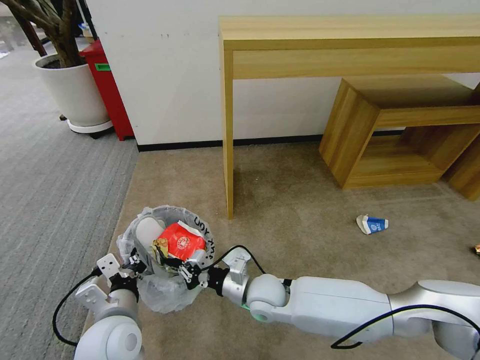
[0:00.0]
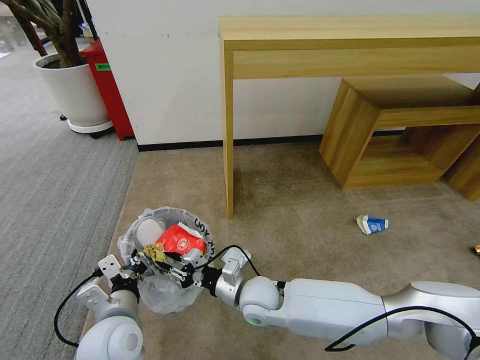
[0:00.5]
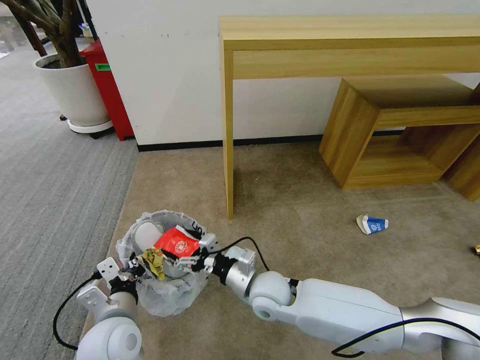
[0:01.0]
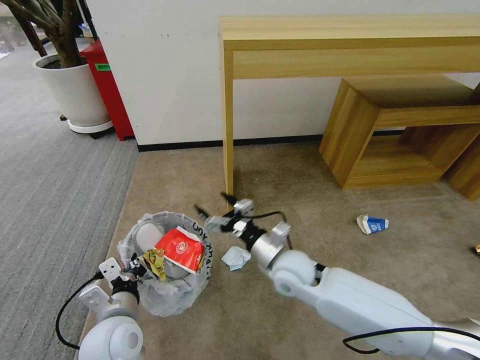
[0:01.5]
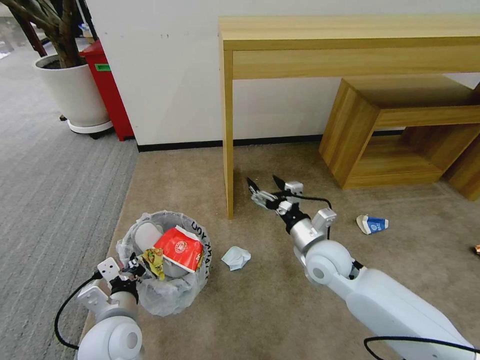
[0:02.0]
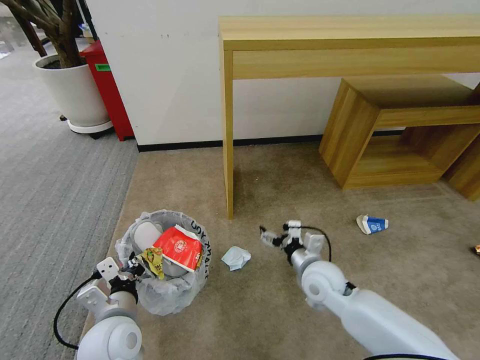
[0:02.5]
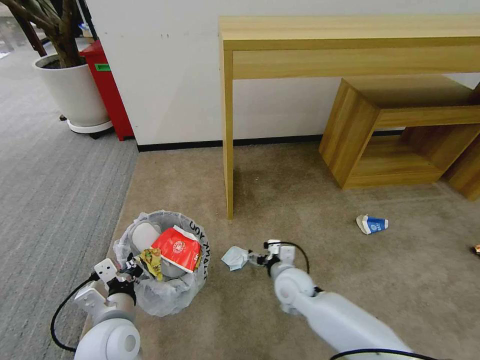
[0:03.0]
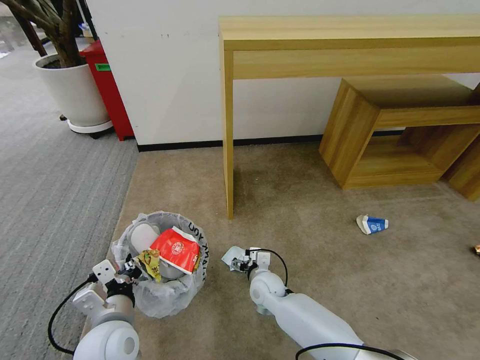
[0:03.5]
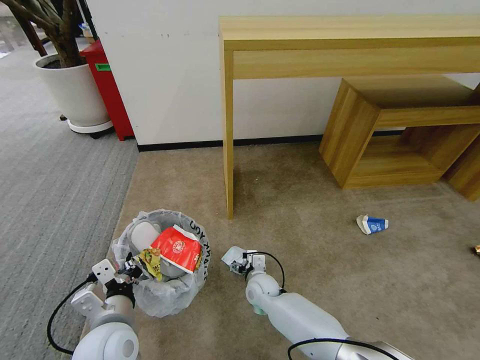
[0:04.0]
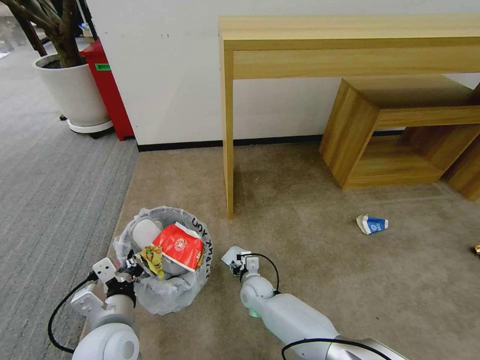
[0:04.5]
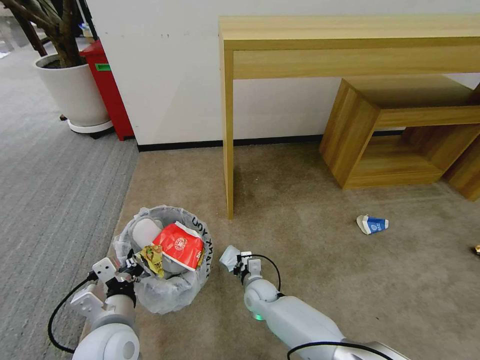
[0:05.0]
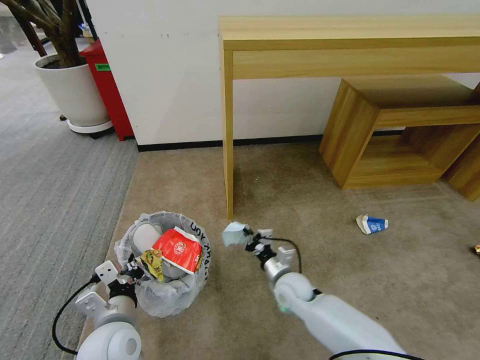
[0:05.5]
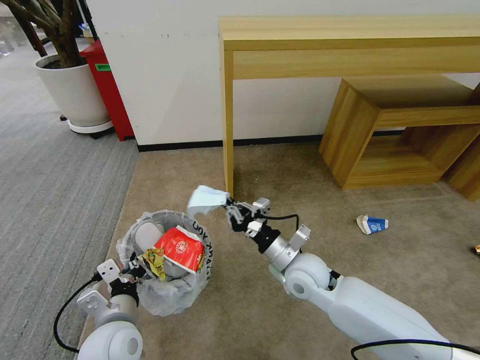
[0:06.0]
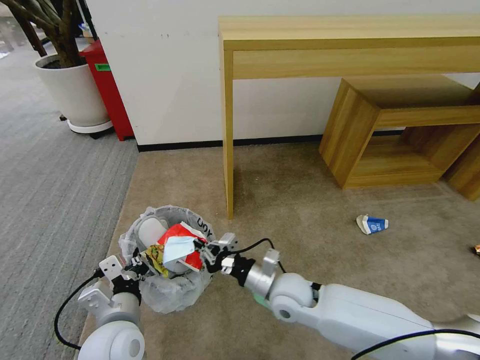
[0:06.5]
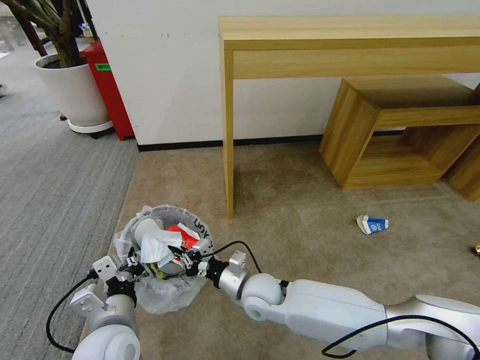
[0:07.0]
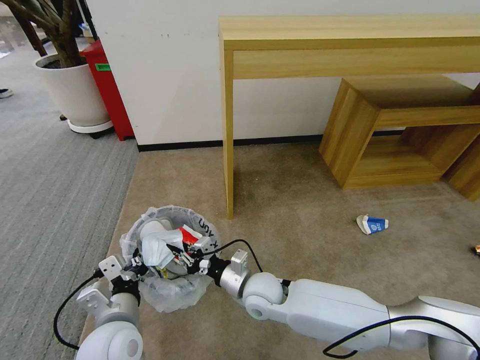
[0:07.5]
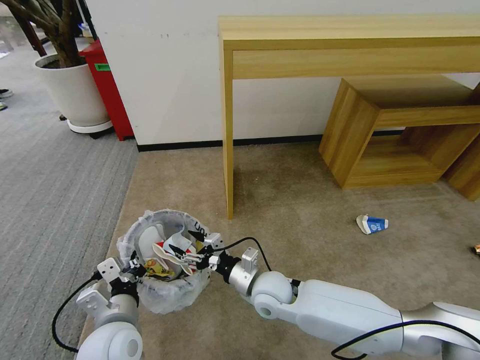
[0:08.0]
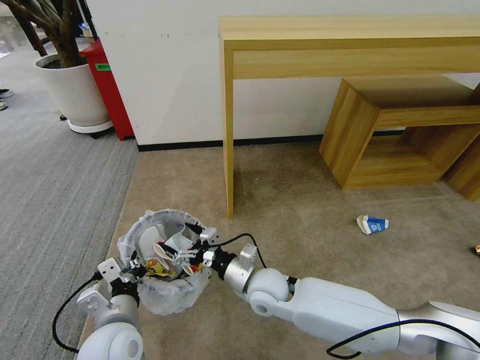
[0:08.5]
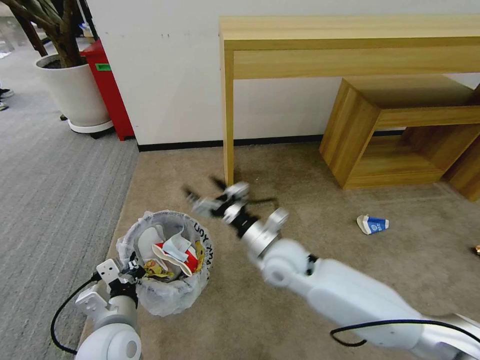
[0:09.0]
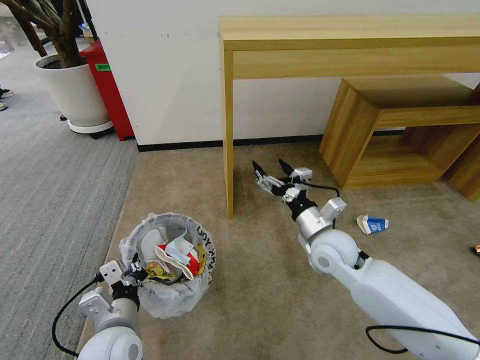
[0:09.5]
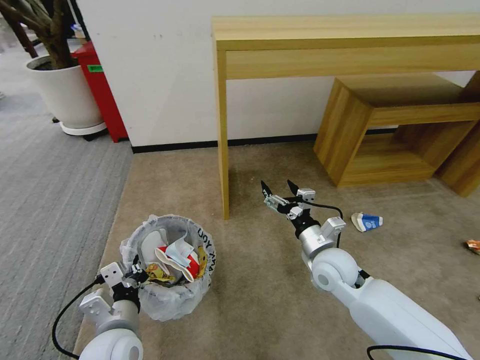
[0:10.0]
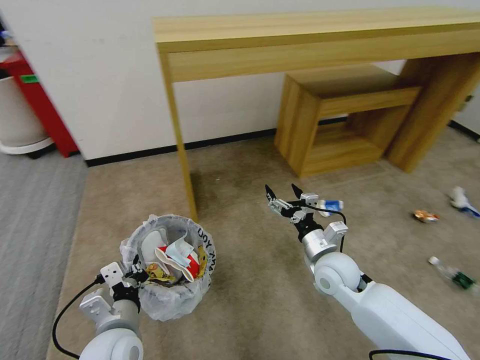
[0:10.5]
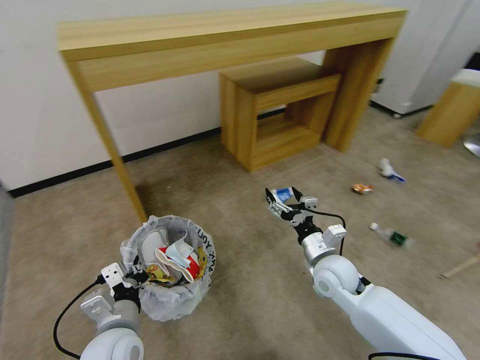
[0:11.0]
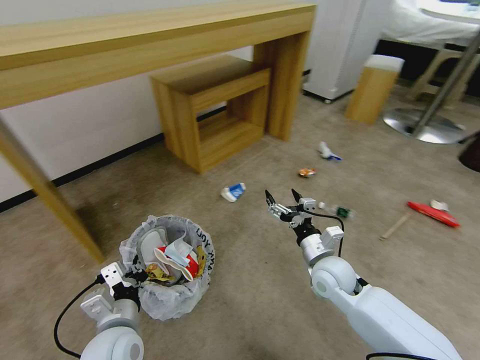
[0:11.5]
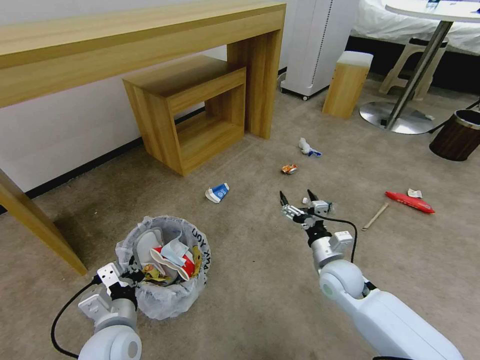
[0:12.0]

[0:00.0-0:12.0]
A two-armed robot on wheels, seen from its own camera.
Task of the whole recording: Pick up the trash bin and place the garbage on the floor into it.
0:00.0 to 0:02.0: The right gripper moves to the right and upward, about 15 cm, and opens its fingers.
0:02.0 to 0:04.0: The right gripper moves downward and to the left, some 25 cm.
0:04.0 to 0:06.0: The right gripper travels upward and to the right by roughly 20 cm, and closes.
0:06.0 to 0:08.0: The right gripper travels to the left by some 10 cm, and opens its fingers.
0:08.0 to 0:10.0: The right gripper heads to the right, covering roughly 15 cm.
0:10.0 to 0:12.0: The right gripper moves about 5 cm.

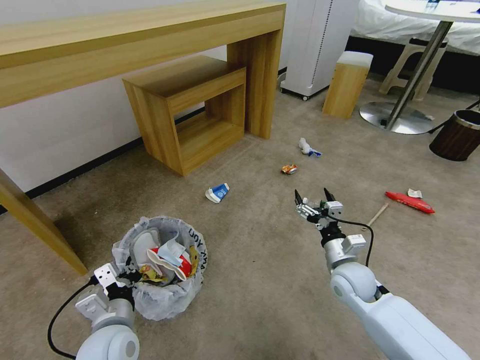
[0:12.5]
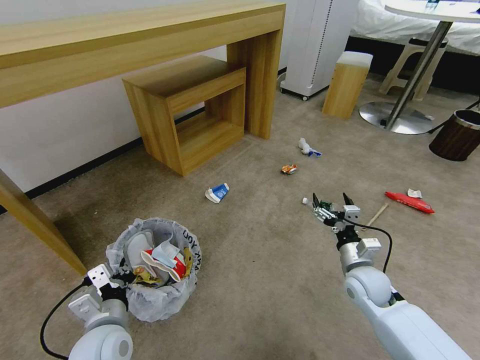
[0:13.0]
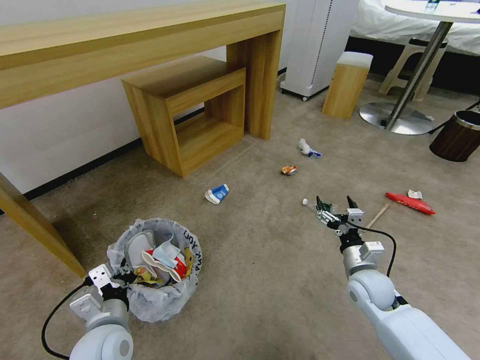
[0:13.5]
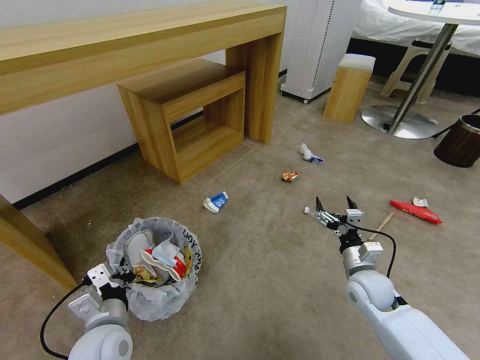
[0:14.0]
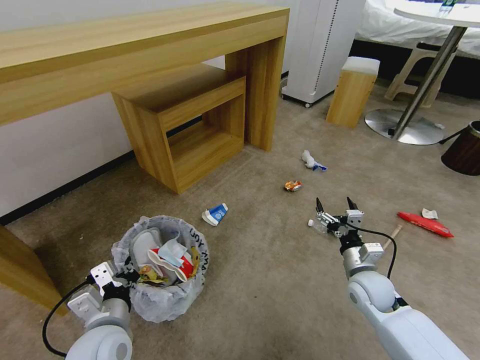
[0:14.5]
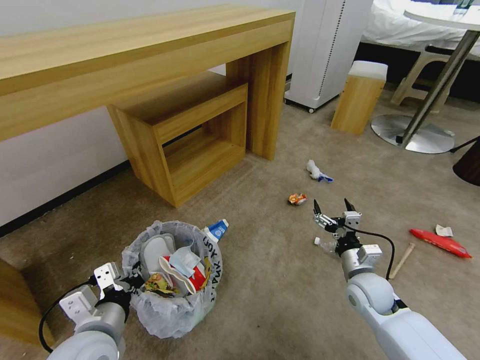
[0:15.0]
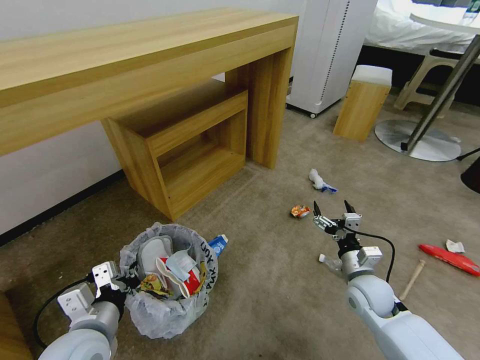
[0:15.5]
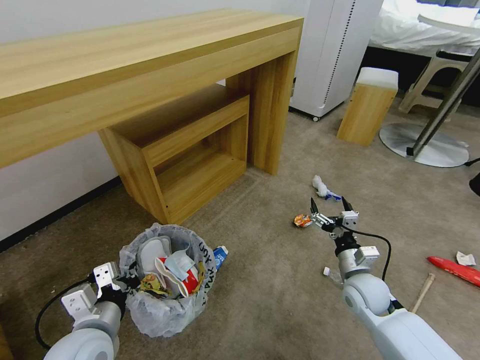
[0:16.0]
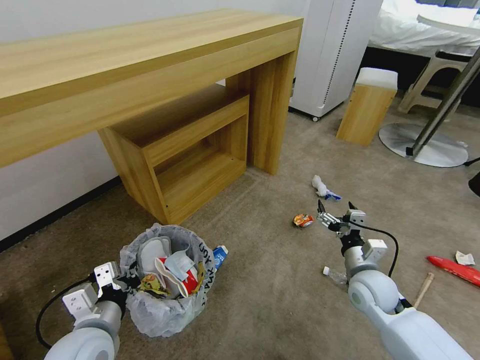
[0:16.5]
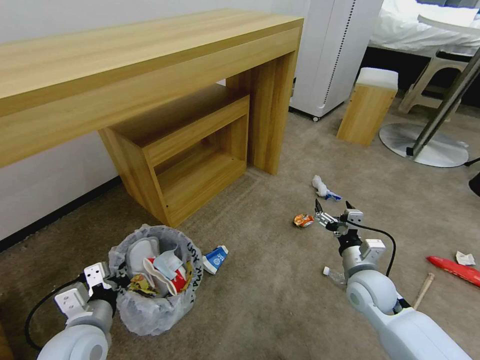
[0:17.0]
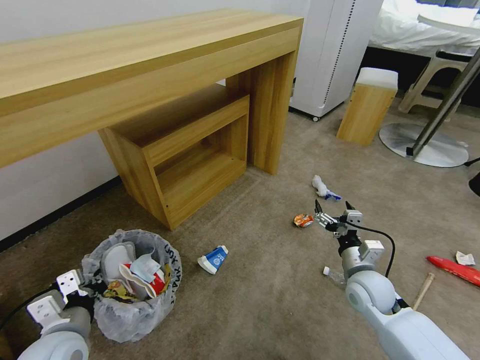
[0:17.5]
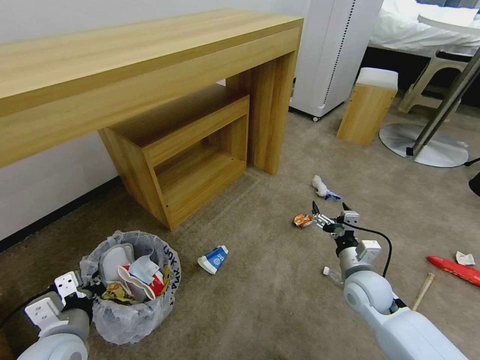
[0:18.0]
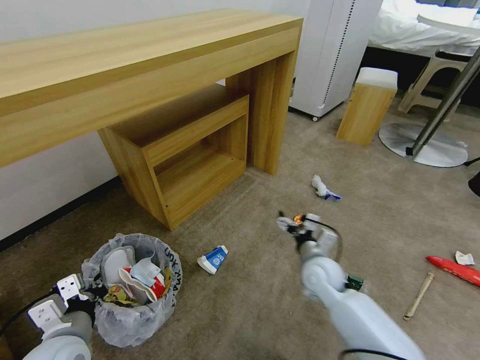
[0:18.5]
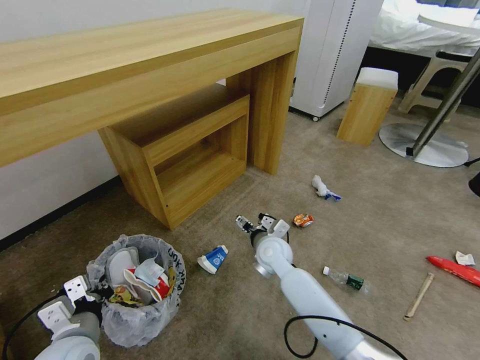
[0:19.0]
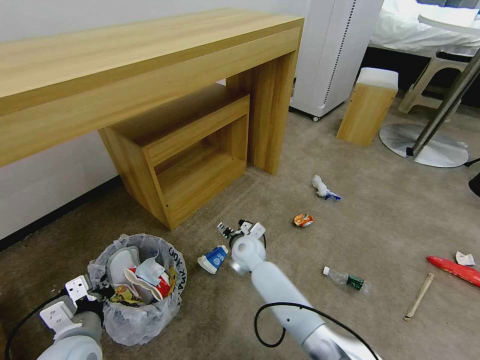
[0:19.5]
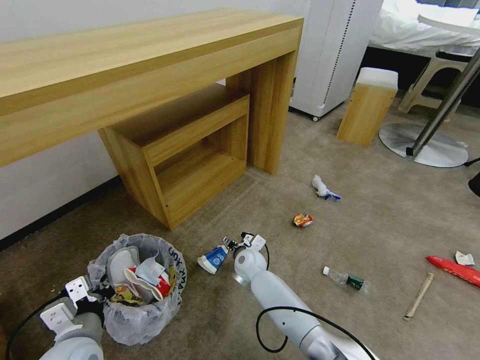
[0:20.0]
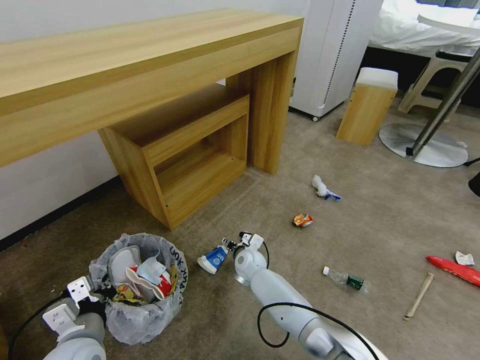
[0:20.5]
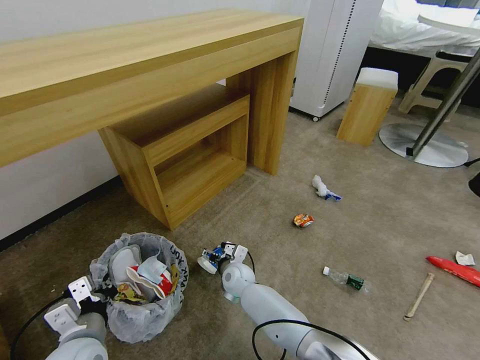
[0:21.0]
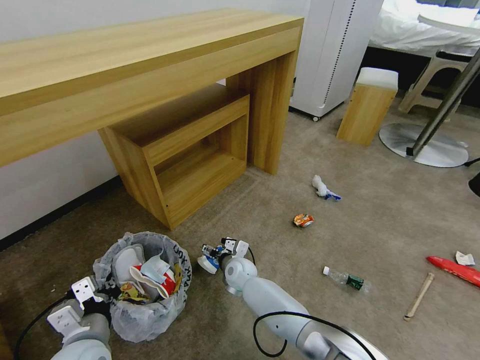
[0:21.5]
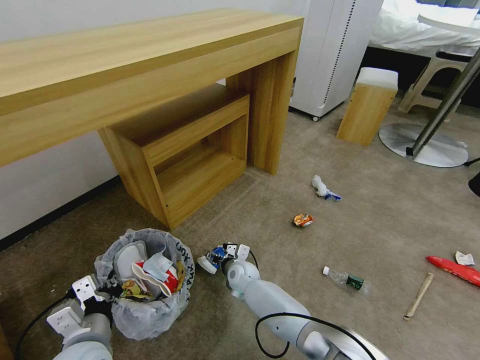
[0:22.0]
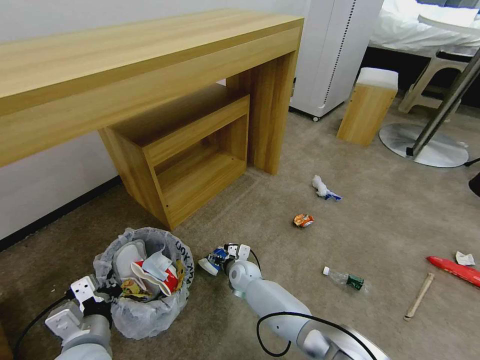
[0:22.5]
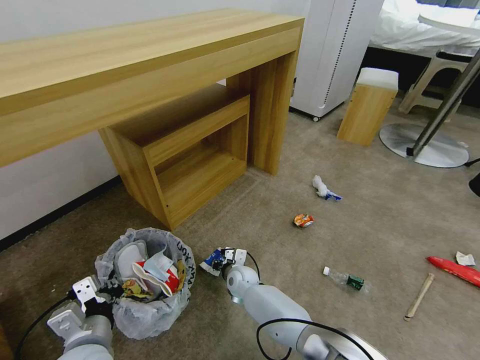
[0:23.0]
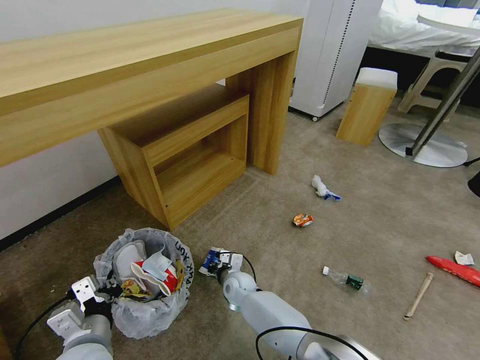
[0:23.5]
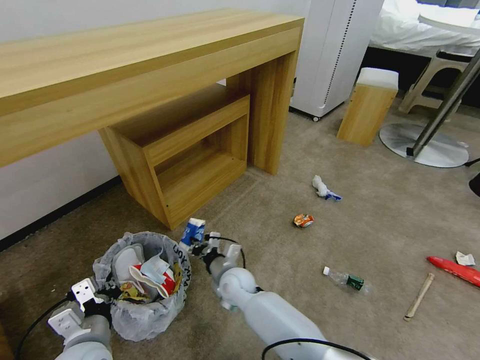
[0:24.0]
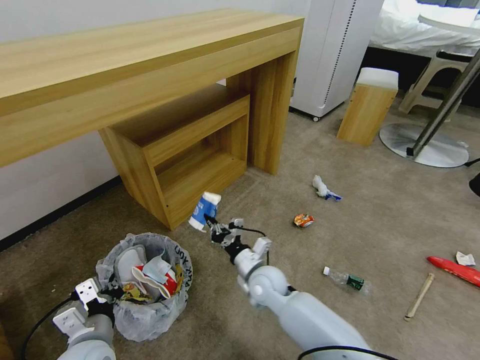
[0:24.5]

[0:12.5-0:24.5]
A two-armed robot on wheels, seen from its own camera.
Task of the whole recording: Pick up the trash bin and place the garbage on the floor into it.
0:16.5 to 0:18.5: The right gripper moves to the left, some 10 cm.
0:18.5 to 0:20.5: The right gripper goes approximately 20 cm to the left, downward and forward.
0:20.5 to 0:22.5: The grippers stay close to where they were, moving slightly.
0:22.5 to 0:24.5: The right gripper goes about 15 cm upward and backward, and closes up.

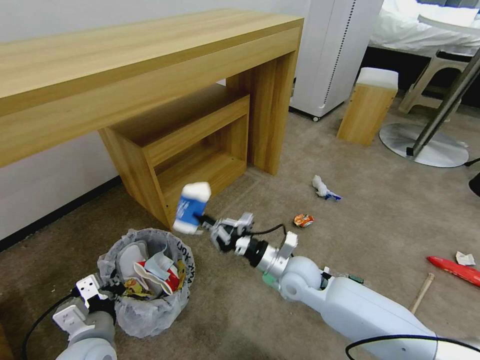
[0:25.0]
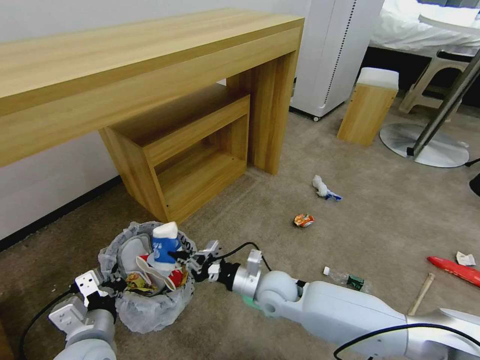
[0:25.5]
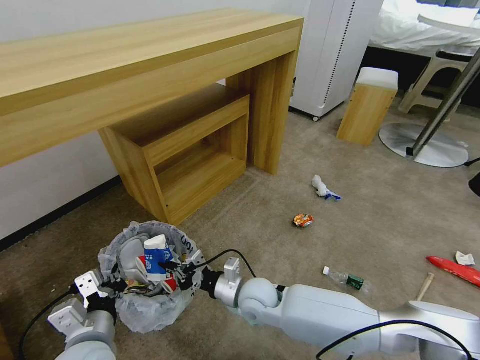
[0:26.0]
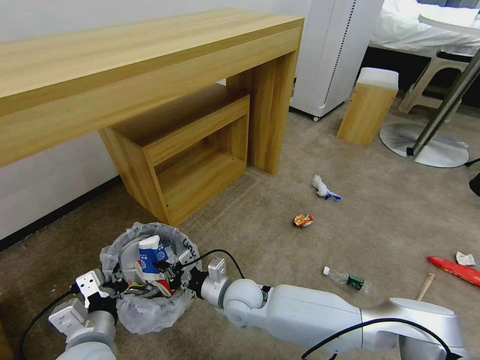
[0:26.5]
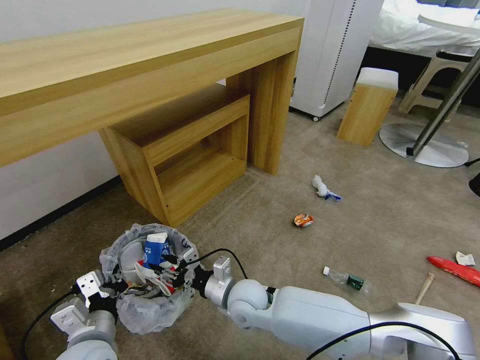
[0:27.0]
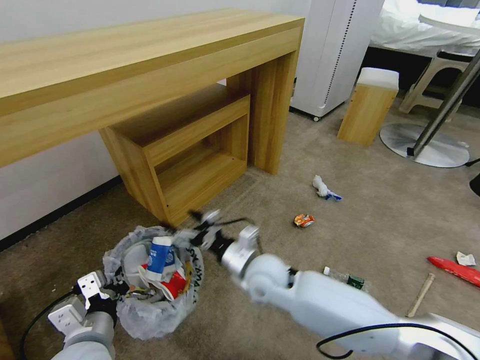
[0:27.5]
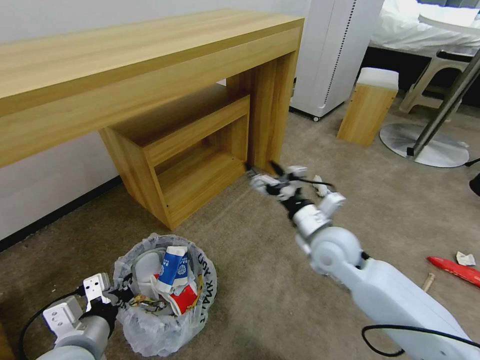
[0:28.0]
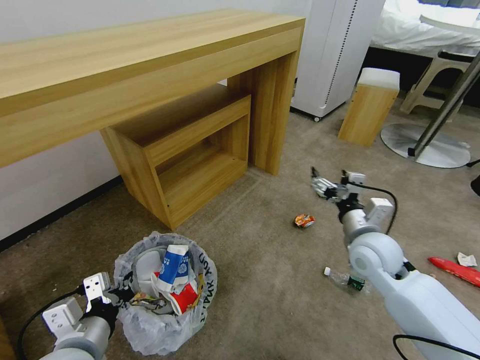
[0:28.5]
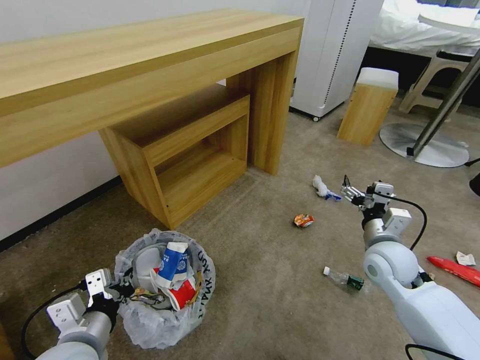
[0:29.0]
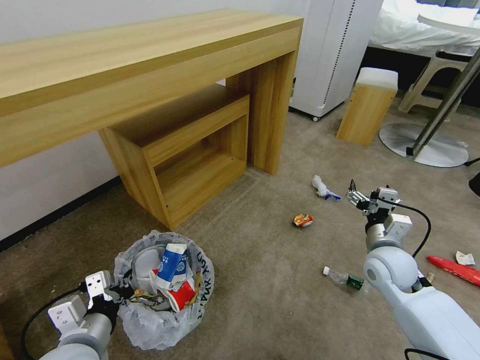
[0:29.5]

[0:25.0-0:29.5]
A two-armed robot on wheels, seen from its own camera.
Task of the whole recording: Pick up the trash bin and place the garbage on the floor into it.
0:25.0 to 0:27.0: The right gripper is displaced to the left by some 10 cm, and opens up.
0:27.0 to 0:29.5: The right gripper heads to the right, covering approximately 30 cm, and opens.
